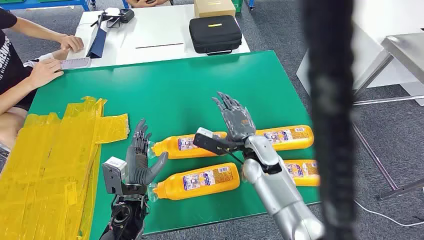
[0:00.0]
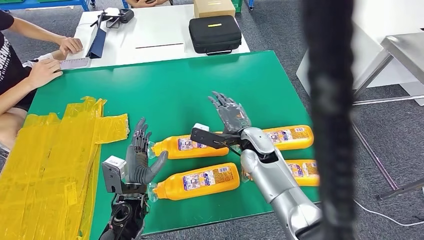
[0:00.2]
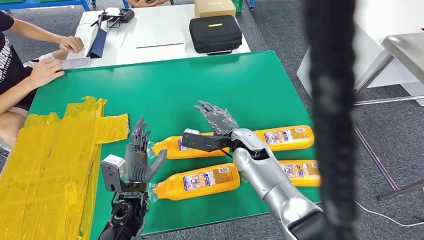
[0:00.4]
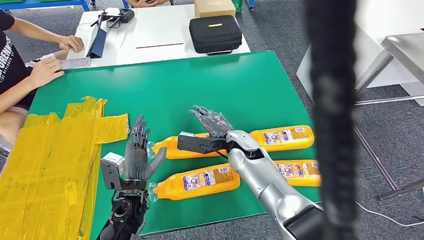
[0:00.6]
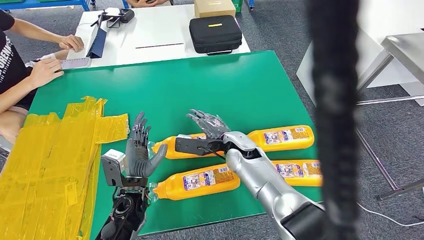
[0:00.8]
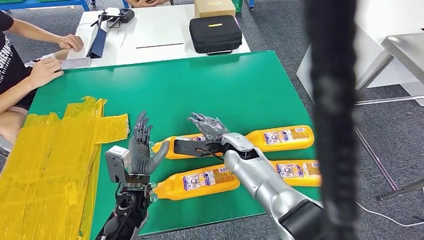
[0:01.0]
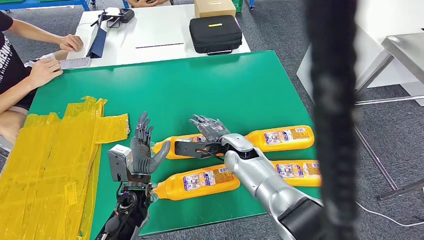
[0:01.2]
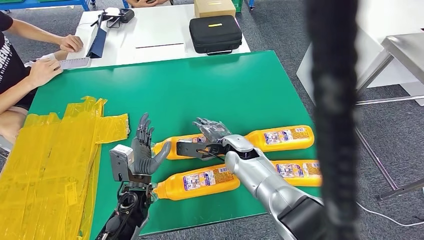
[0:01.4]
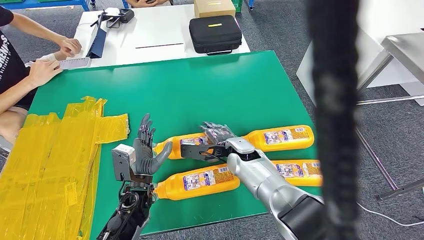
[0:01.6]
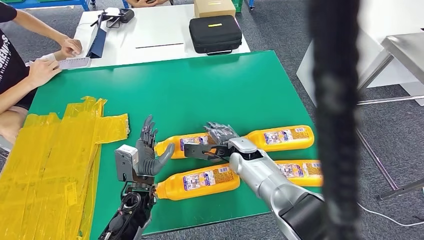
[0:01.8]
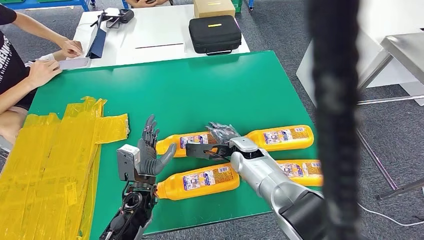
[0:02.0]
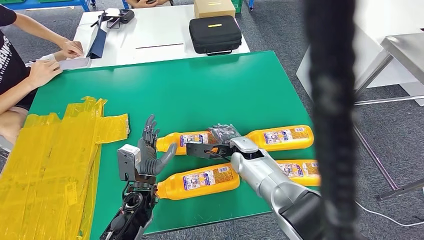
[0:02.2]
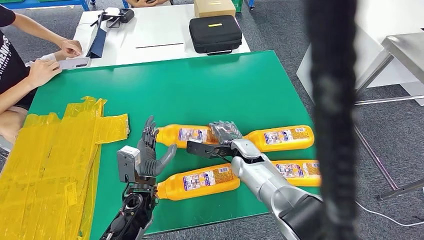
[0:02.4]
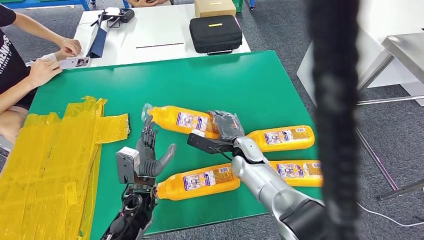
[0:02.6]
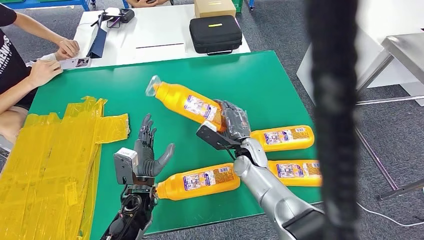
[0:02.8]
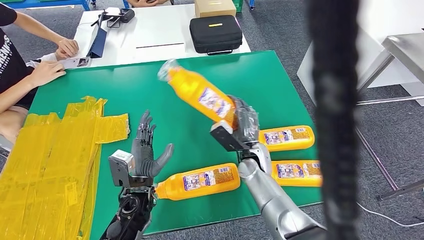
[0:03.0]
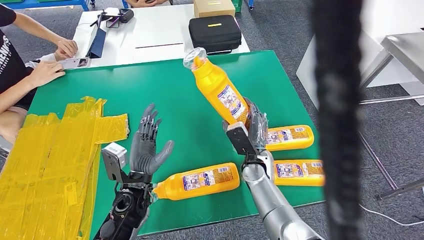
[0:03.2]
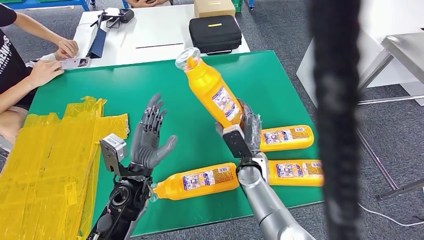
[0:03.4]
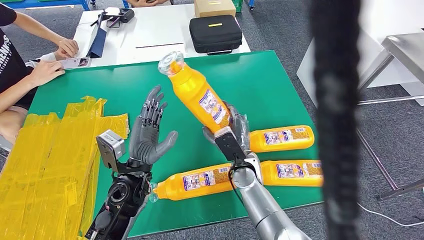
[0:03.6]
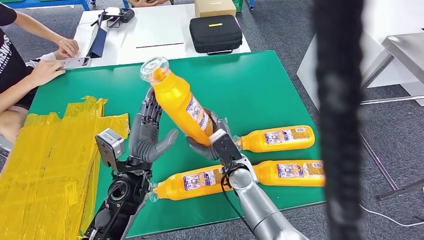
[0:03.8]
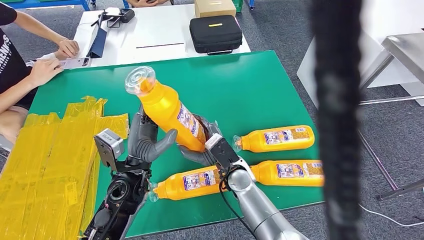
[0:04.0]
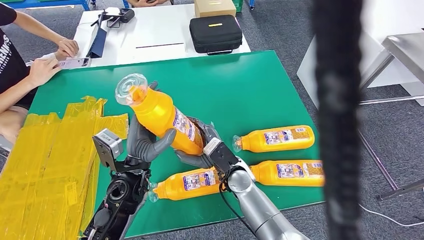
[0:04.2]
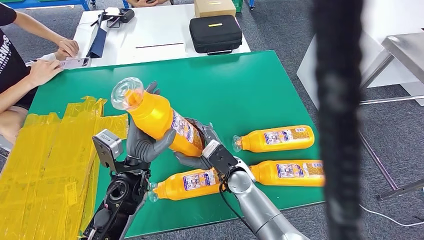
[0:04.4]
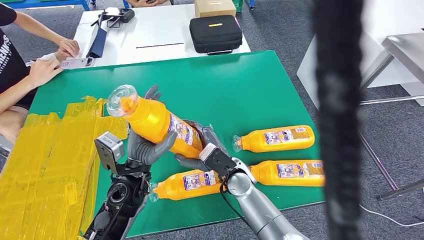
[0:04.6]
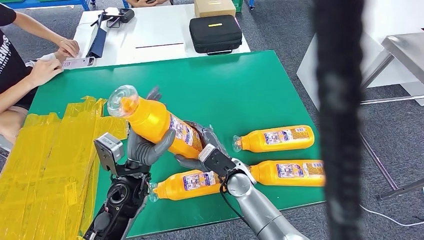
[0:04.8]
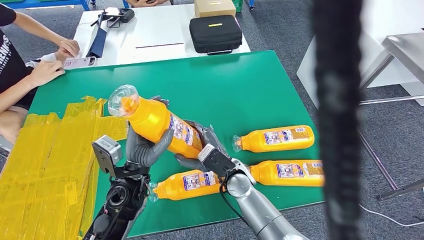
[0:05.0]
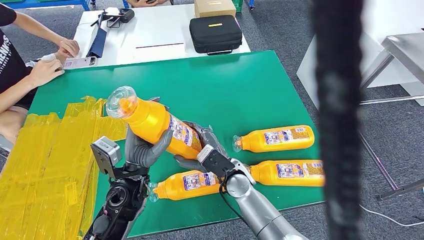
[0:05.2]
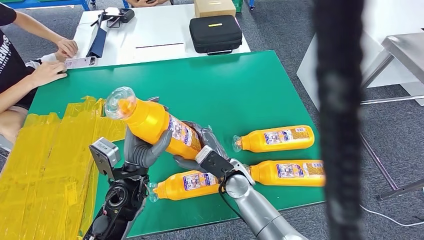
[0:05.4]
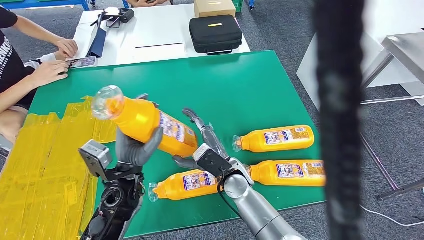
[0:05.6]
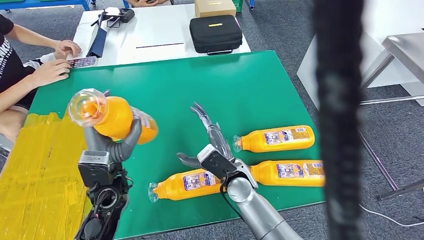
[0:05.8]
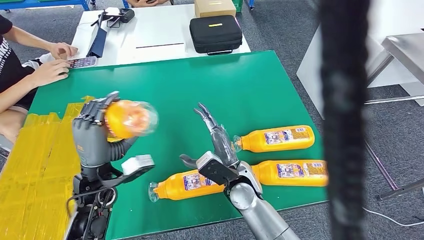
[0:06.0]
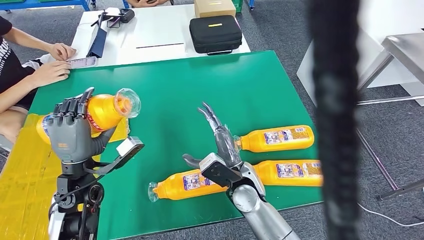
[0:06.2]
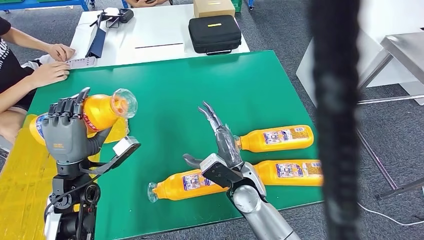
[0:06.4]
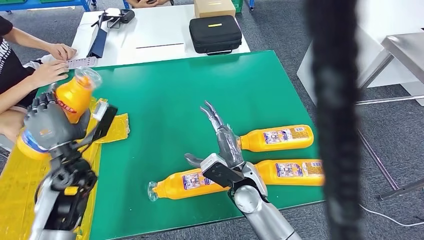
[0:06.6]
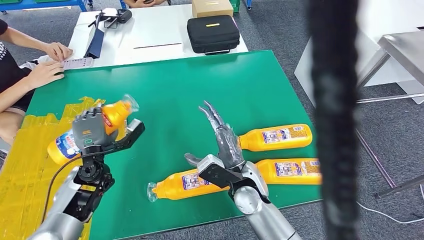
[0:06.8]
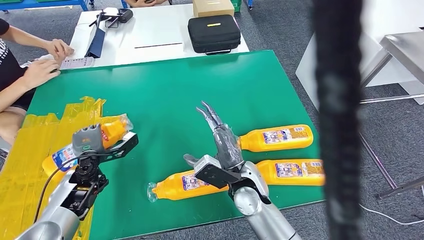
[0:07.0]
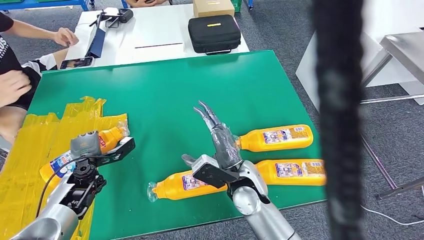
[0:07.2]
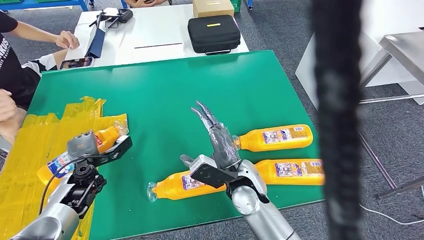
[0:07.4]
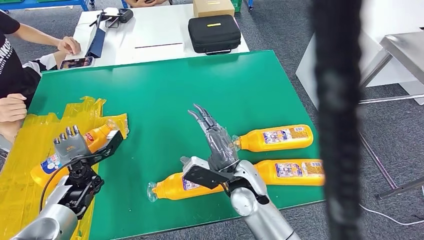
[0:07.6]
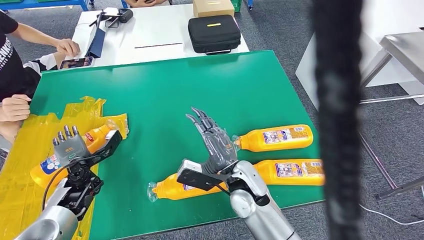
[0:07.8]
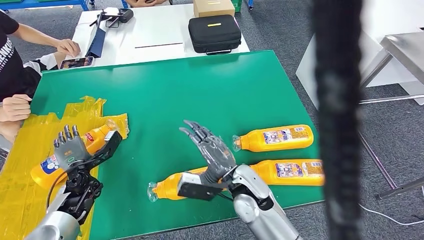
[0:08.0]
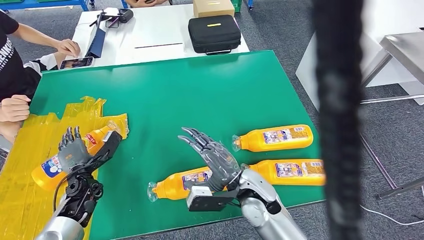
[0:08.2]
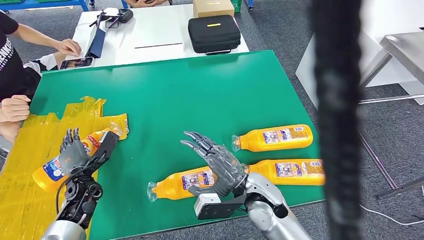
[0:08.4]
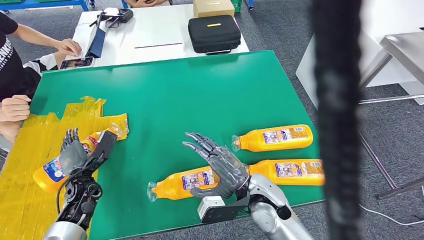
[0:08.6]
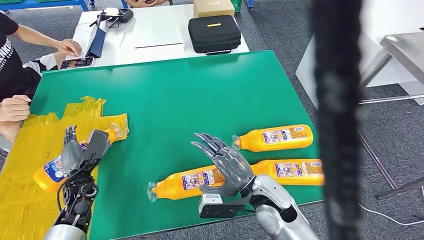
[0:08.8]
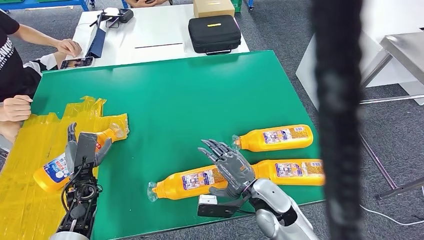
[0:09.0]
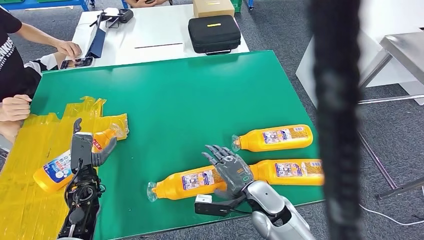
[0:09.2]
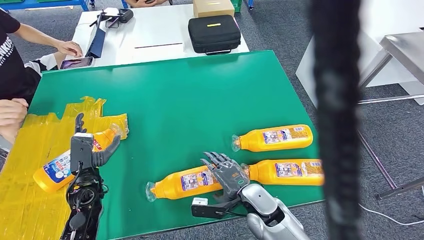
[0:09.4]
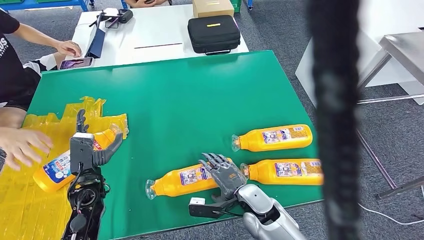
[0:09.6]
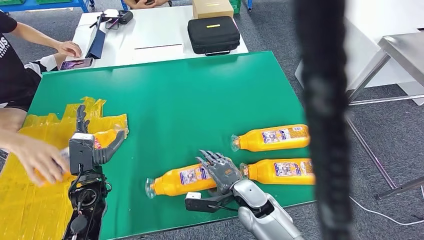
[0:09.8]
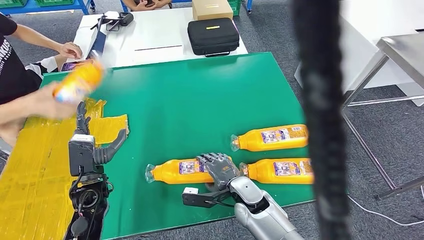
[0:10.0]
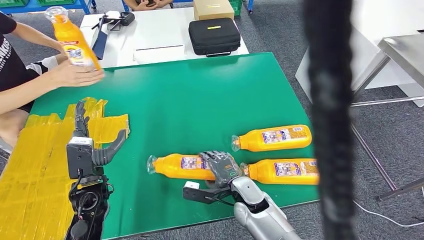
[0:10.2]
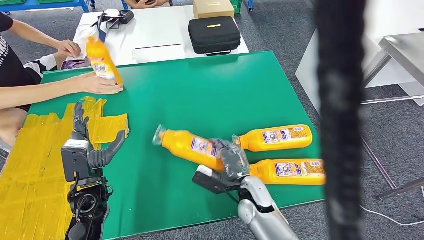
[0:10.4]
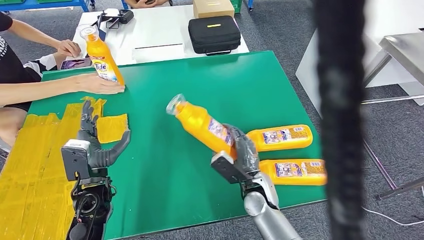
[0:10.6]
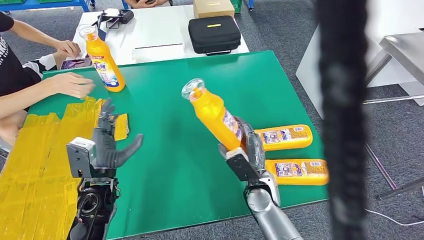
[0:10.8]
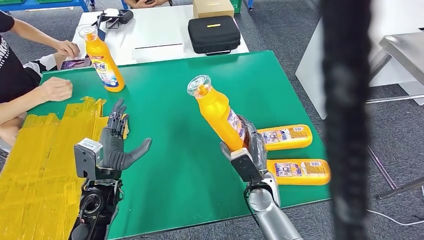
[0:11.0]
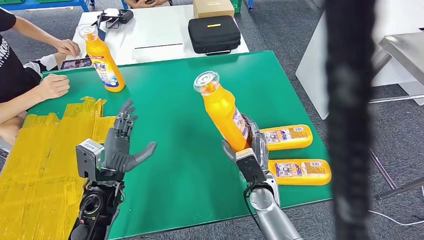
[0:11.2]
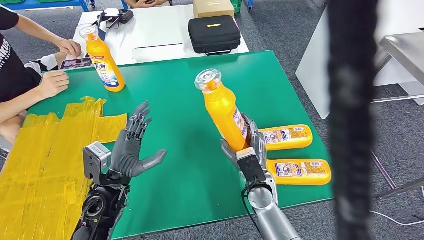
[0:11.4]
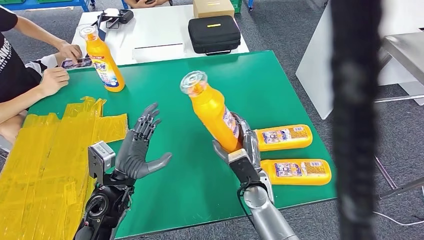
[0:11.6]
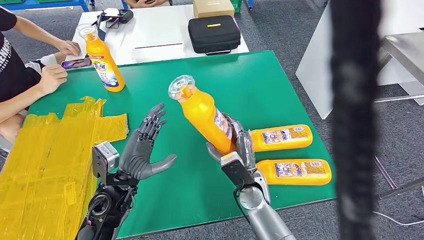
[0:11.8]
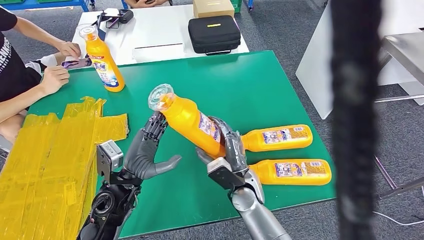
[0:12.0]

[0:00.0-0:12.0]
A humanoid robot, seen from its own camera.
Step, 0:00.0 to 0:03.0: Take the bottle from the table.
Step, 0:03.4 to 0:07.2: Flip the bottle to face forward.
Step, 0:07.4 to 0:11.0: Pick up the bottle from the table.
0:03.0 to 0:04.4: The right hand travels to the left by approximately 5 cm. The left hand is displaced upward by roughly 10 cm.
0:07.6 to 0:09.0: The right hand is displaced to the right by some 5 cm.

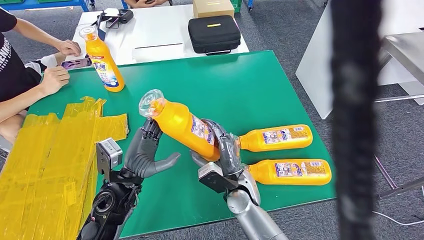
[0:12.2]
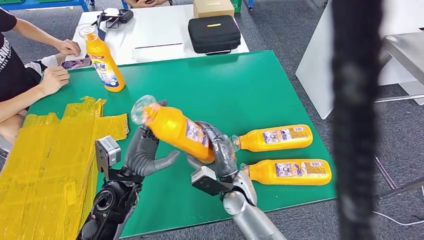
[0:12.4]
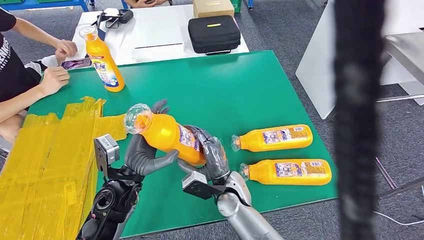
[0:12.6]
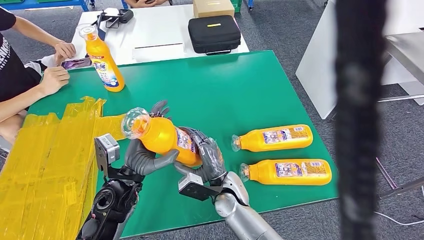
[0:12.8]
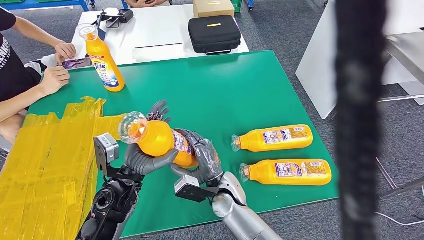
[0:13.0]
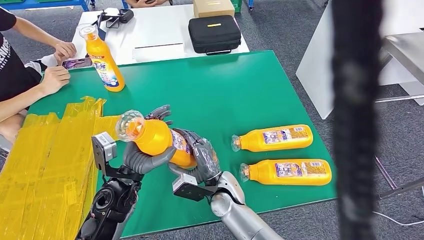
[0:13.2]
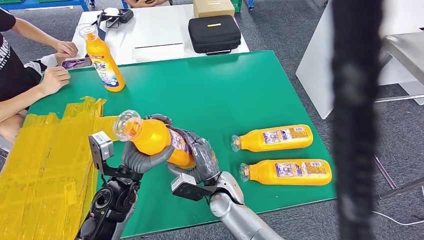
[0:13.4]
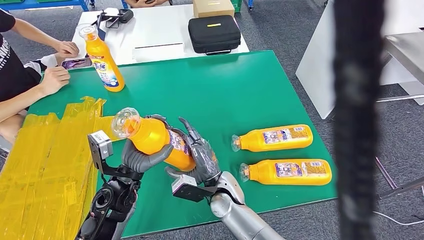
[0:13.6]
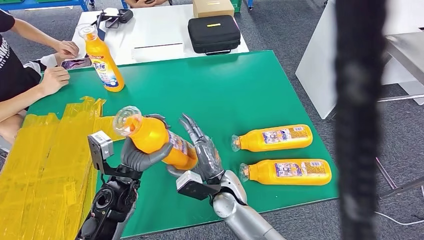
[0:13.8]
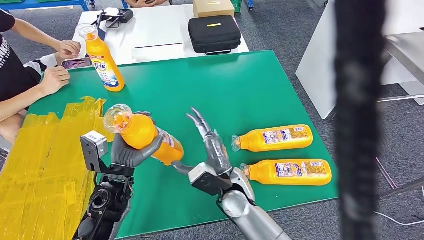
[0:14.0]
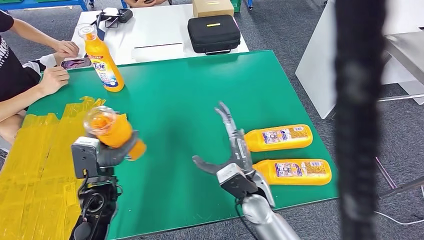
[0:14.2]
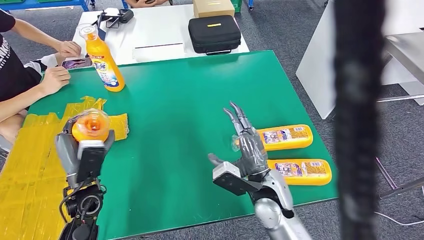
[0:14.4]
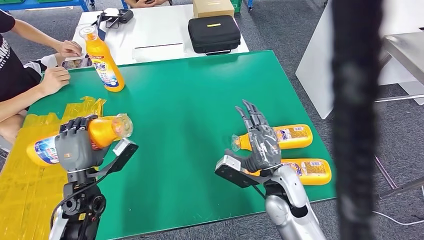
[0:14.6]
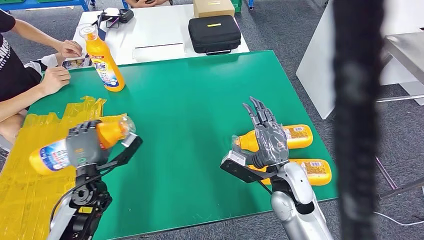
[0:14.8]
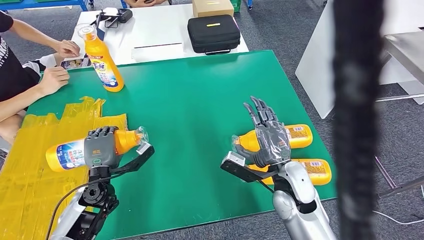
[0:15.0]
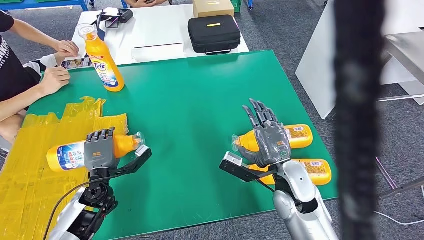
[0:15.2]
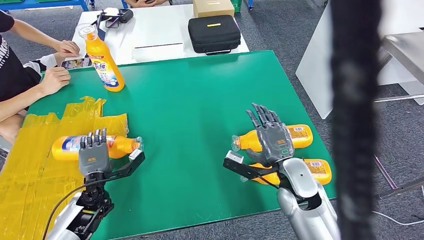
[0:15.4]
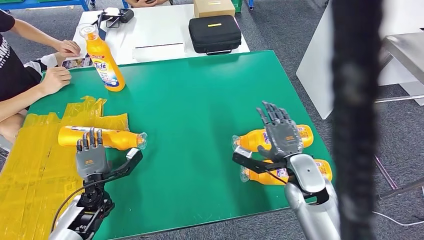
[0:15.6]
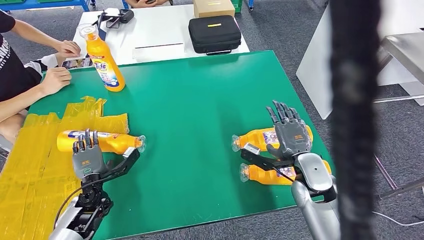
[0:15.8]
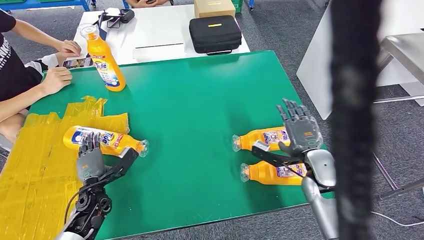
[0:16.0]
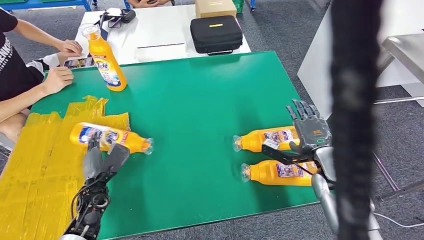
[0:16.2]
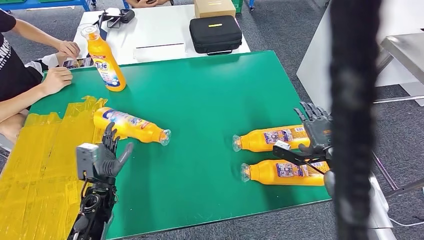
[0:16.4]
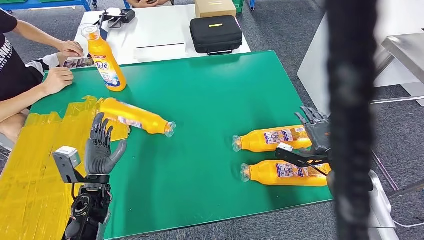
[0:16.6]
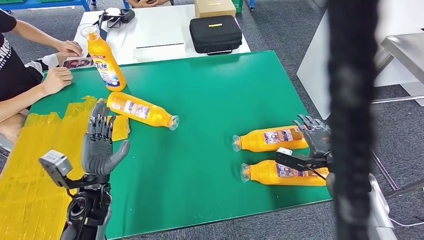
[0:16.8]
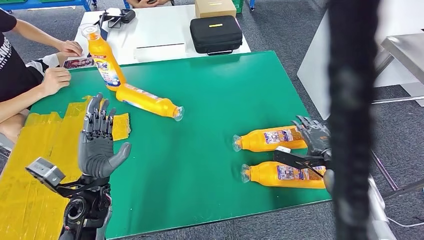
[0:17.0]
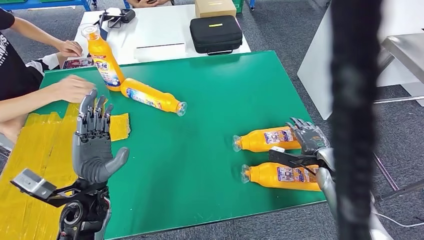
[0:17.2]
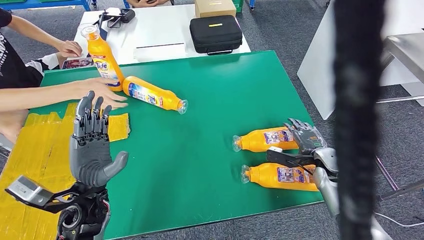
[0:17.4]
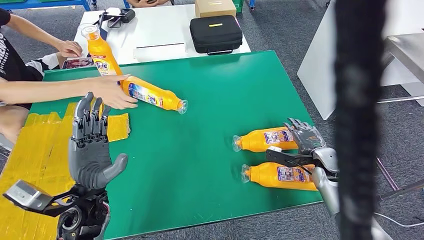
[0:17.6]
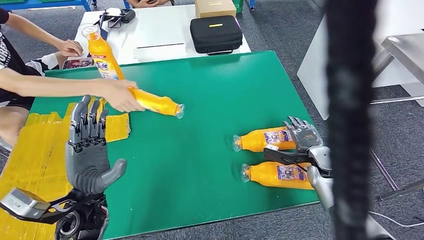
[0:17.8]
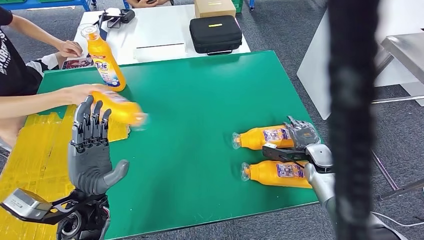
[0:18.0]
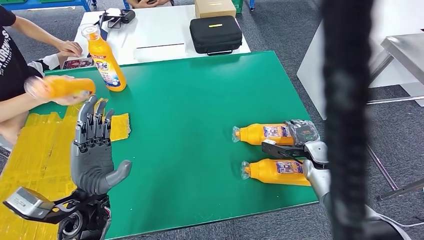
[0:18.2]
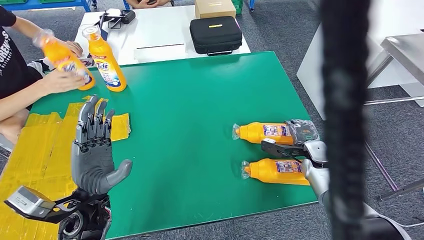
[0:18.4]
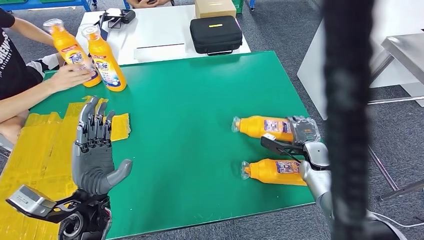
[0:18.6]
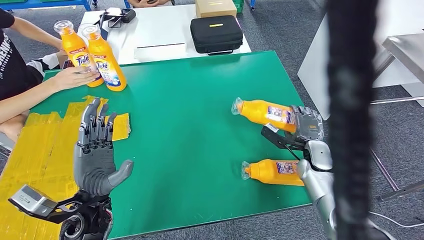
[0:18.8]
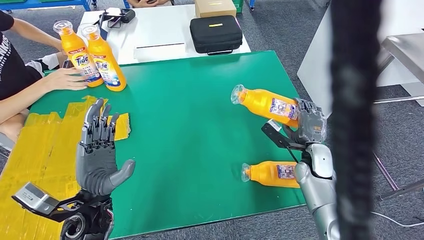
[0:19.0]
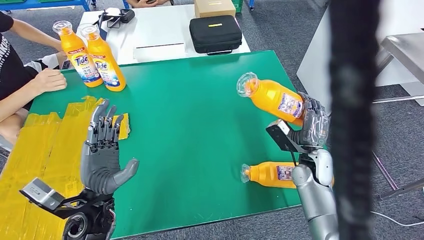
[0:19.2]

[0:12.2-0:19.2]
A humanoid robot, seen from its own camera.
Step, 0:12.2 to 0:15.4: Flip the bottle to face forward.
0:12.2 to 0:13.6: There are only small adjustments of the hands.
